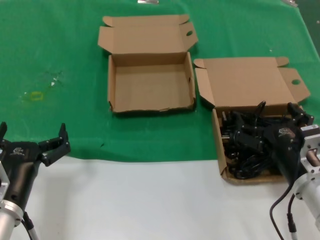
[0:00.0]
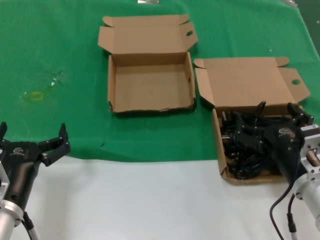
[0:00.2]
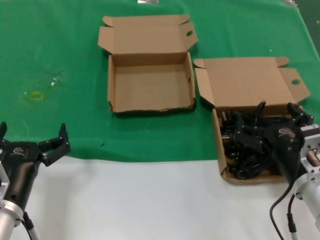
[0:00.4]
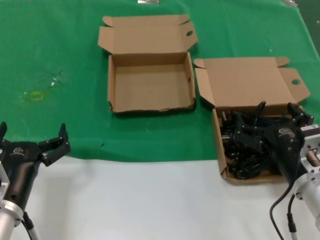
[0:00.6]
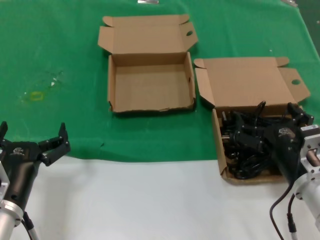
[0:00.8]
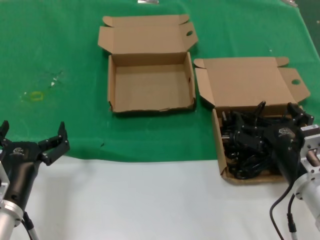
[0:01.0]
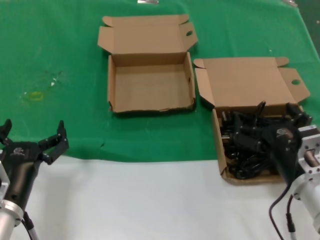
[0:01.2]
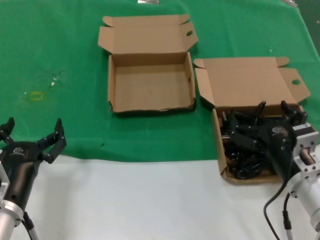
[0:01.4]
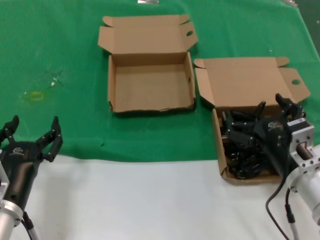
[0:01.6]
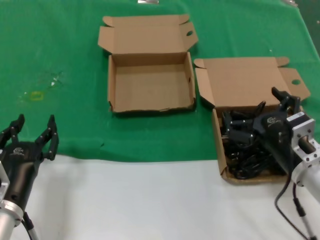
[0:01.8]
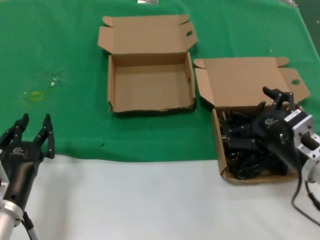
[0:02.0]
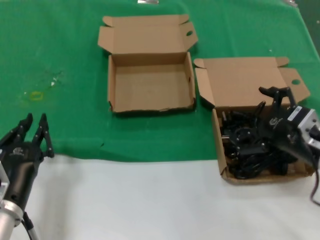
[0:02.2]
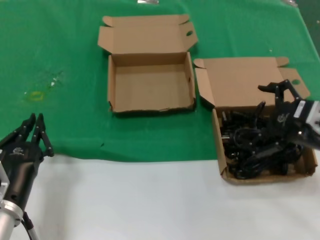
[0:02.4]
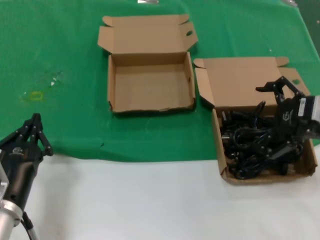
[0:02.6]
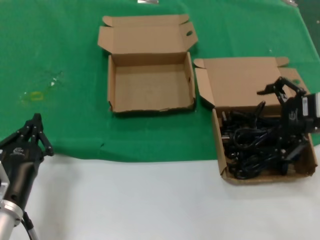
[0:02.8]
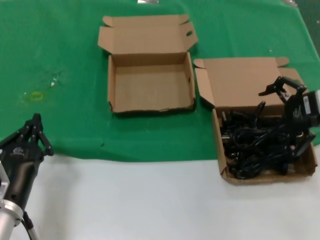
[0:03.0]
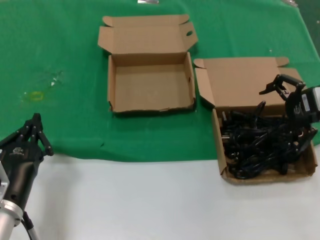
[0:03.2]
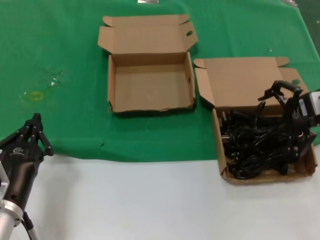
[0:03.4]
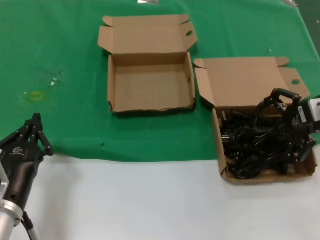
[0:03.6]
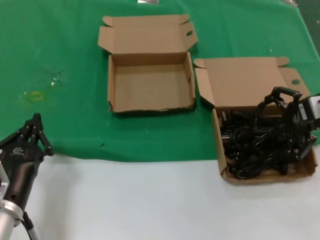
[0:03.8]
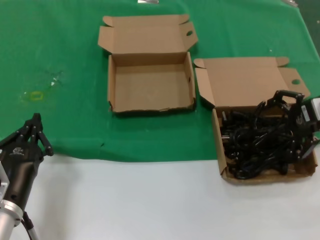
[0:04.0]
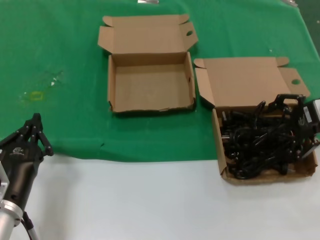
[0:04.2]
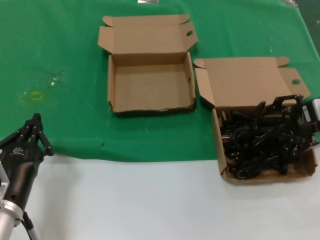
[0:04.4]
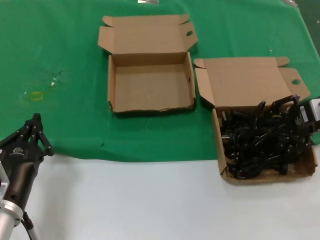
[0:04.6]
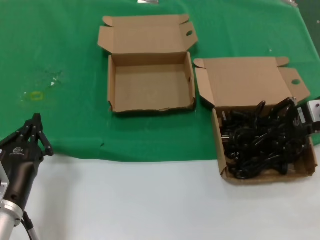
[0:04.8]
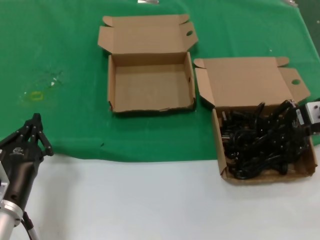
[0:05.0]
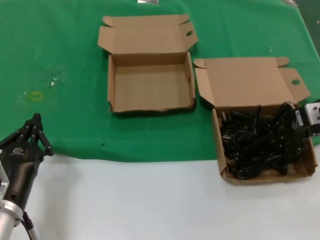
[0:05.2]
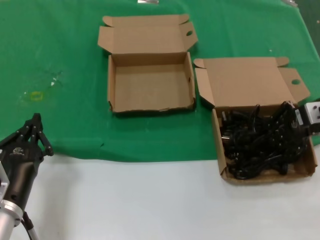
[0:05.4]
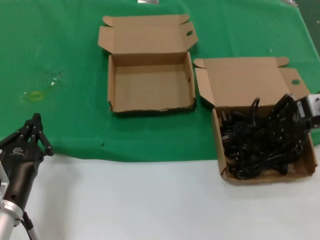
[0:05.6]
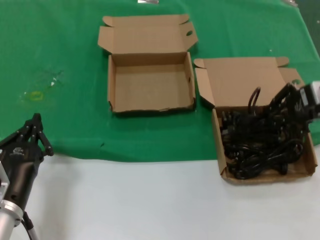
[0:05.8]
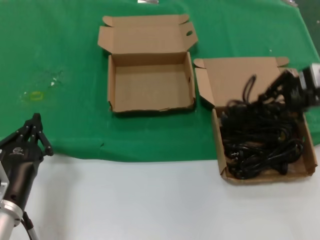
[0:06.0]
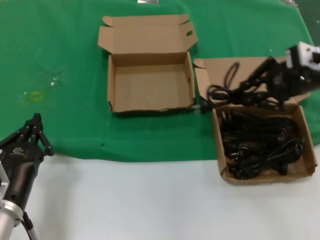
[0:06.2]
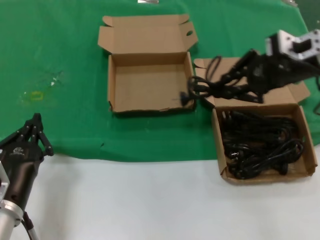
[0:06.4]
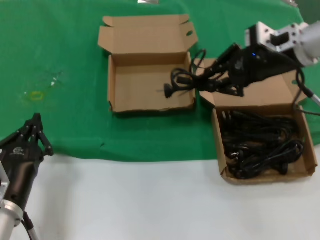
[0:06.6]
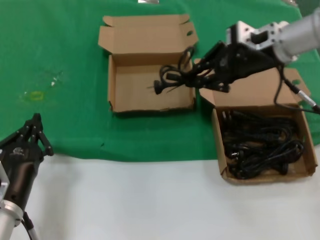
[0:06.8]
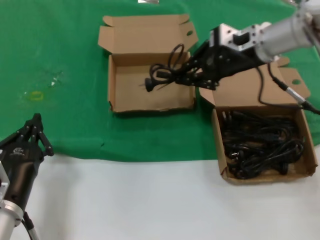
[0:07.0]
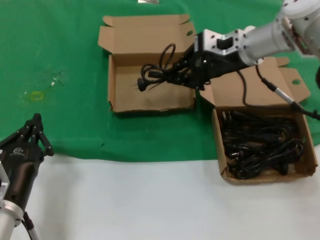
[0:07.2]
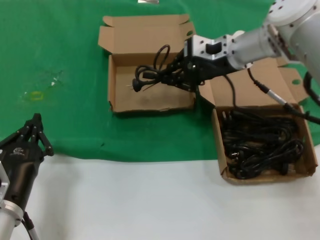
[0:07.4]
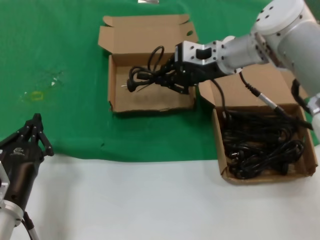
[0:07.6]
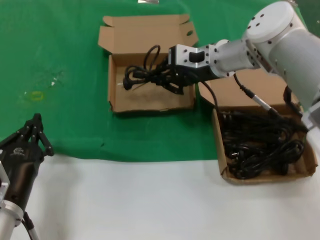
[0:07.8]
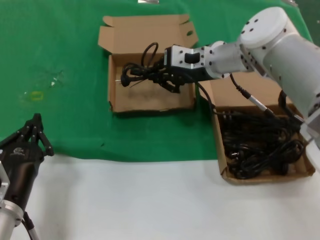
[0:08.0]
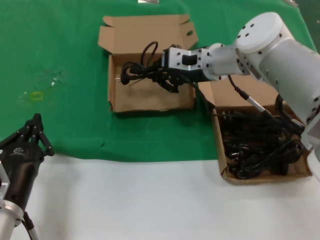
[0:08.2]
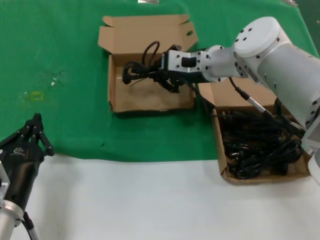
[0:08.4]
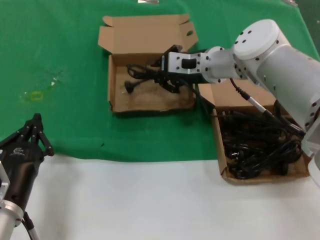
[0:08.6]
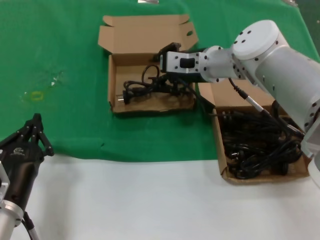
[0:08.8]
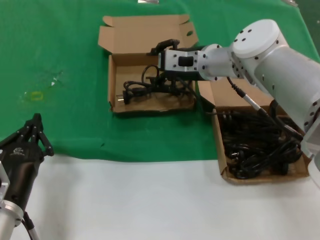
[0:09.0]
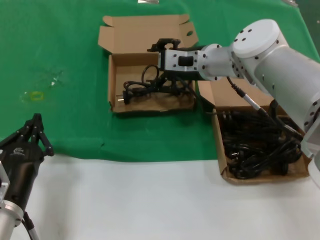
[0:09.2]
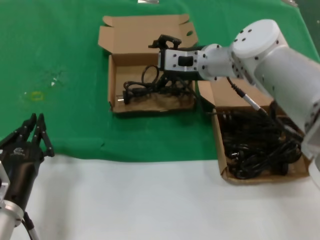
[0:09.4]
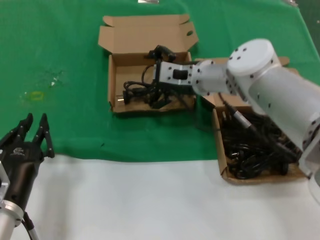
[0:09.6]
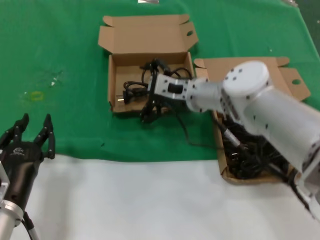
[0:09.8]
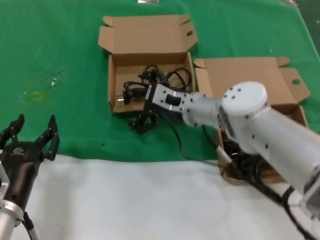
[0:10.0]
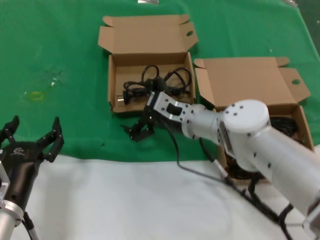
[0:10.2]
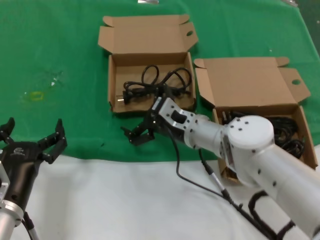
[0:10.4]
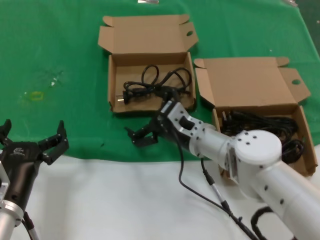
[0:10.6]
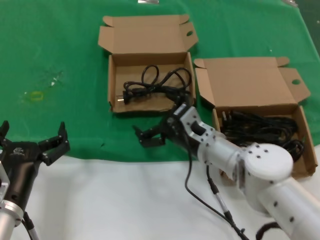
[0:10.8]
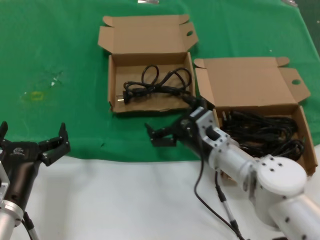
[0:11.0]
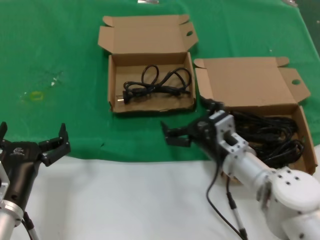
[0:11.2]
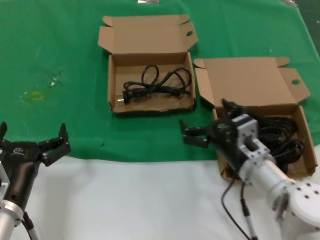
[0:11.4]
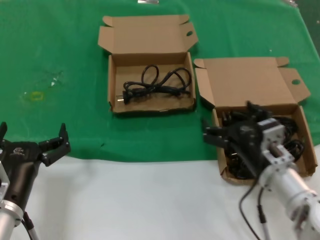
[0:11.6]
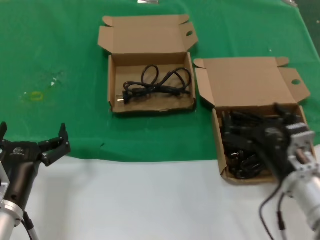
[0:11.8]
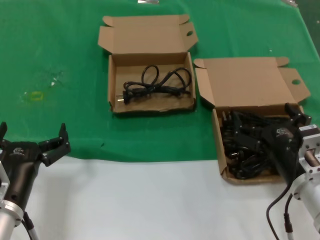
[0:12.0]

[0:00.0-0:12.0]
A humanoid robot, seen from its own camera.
Task of the whole recording: take the parts from the box containing them and put them into an empty box.
Step, 0:00.0 to 0:05.4: Grasp the data cable.
Step, 0:05.6 to 0:08.8: Place the data cable in the another box.
0:00.0 to 0:01.6: The hands move only a little.
0:01.6 to 0:03.0: The right hand goes about 25 cm upward, to the right and forward.
0:03.0 to 0:04.4: The right hand shifts by approximately 5 cm.
0:04.4 to 0:06.0: The right hand goes some 5 cm upward.
0:06.0 to 0:07.6: The right hand shifts approximately 20 cm to the left and forward.
0:07.6 to 0:09.0: The right hand moves approximately 5 cm.
0:09.0 to 0:10.4: The right hand goes roughly 15 cm downward and backward.
0:10.4 to 0:12.0: The right hand travels backward and to the right by about 25 cm.

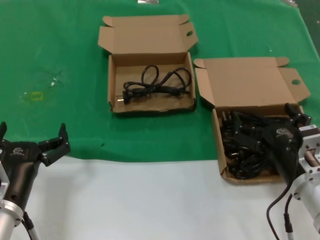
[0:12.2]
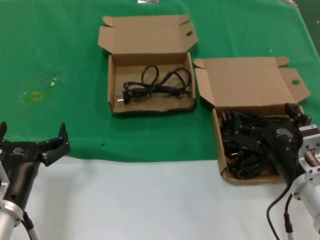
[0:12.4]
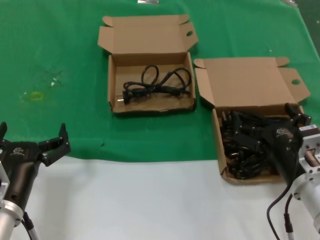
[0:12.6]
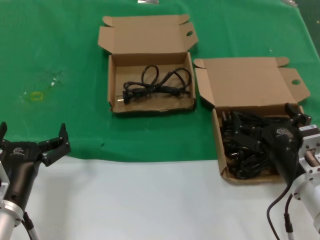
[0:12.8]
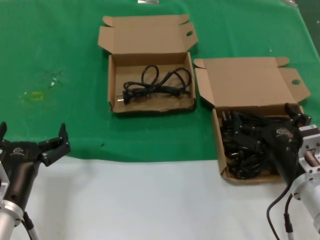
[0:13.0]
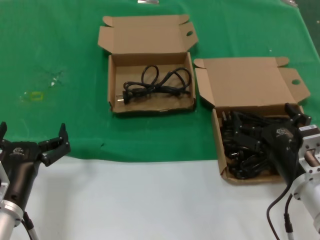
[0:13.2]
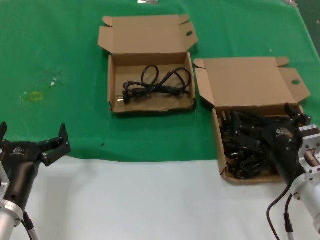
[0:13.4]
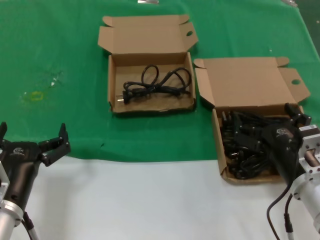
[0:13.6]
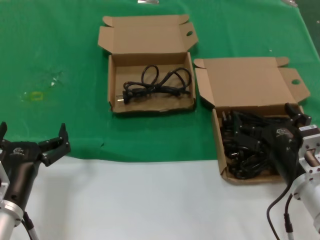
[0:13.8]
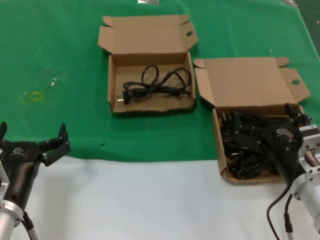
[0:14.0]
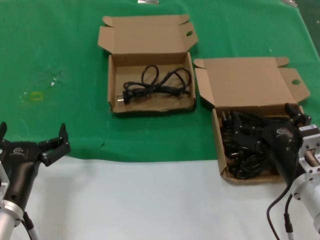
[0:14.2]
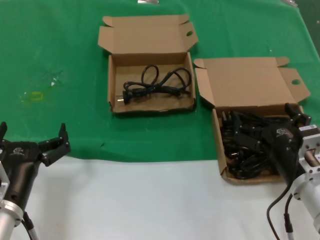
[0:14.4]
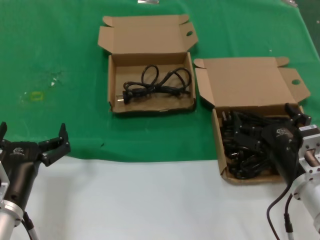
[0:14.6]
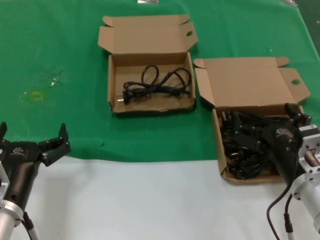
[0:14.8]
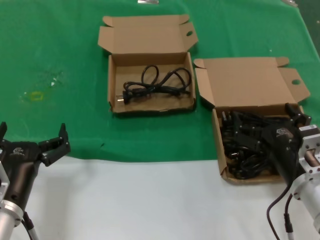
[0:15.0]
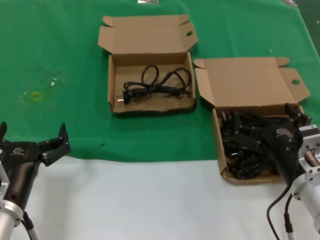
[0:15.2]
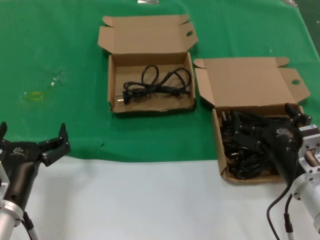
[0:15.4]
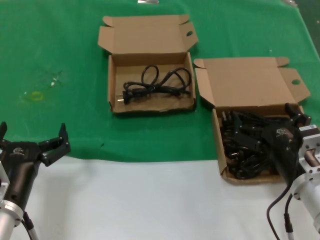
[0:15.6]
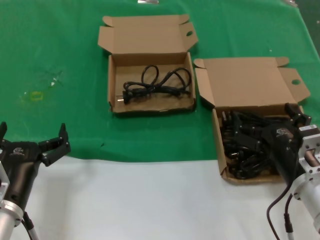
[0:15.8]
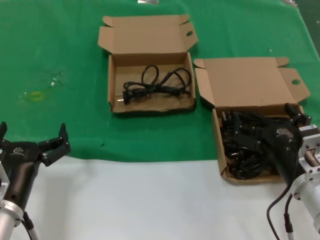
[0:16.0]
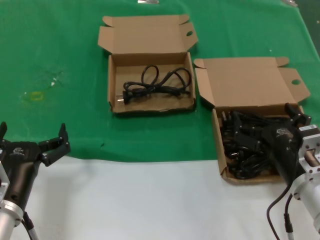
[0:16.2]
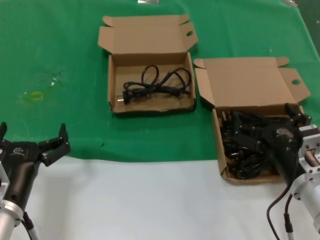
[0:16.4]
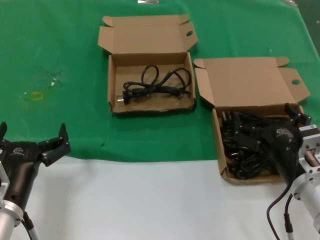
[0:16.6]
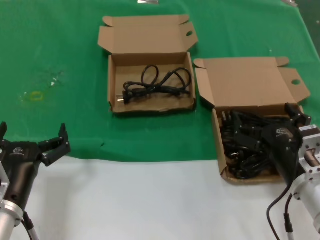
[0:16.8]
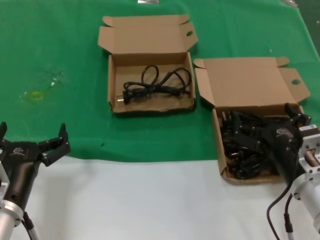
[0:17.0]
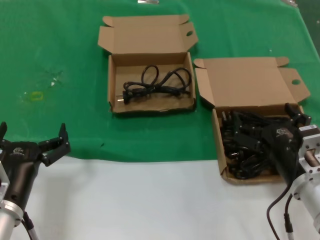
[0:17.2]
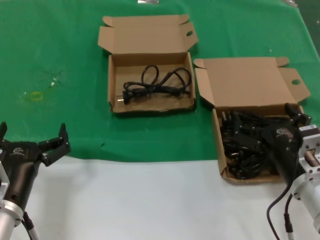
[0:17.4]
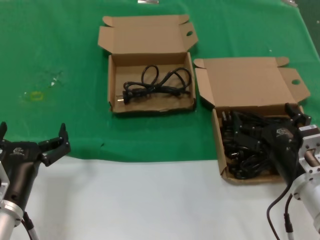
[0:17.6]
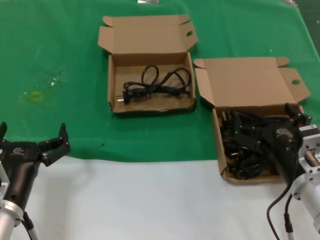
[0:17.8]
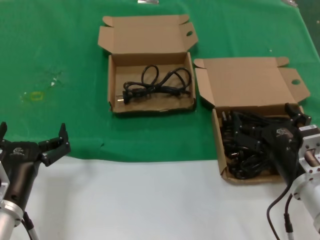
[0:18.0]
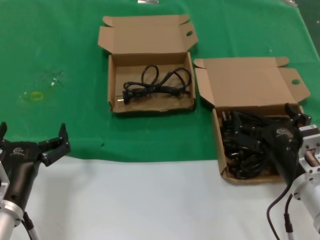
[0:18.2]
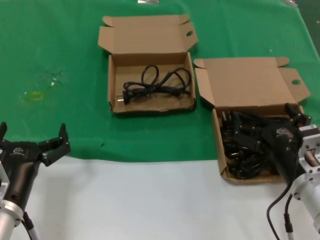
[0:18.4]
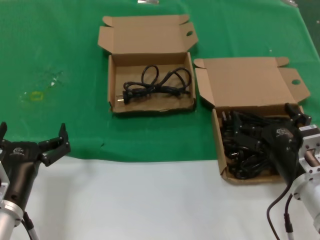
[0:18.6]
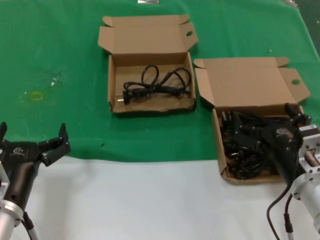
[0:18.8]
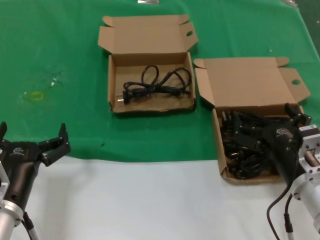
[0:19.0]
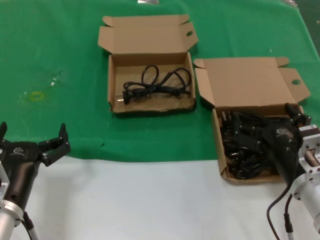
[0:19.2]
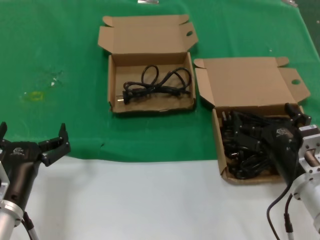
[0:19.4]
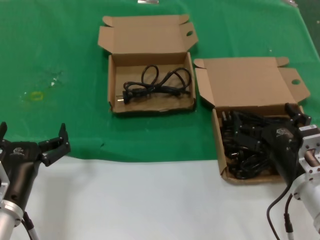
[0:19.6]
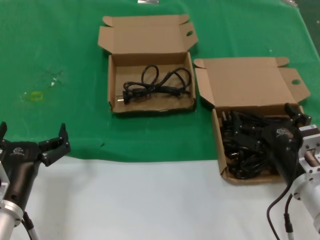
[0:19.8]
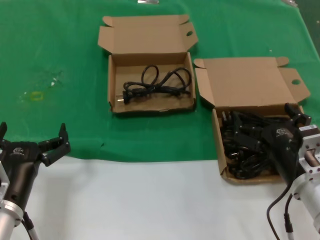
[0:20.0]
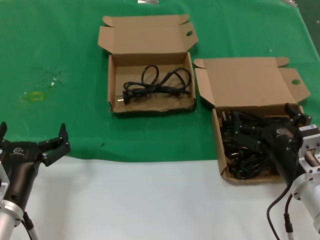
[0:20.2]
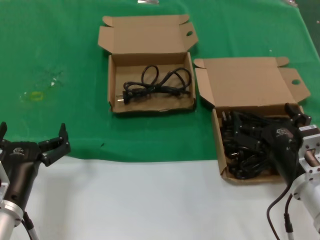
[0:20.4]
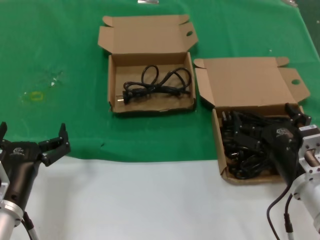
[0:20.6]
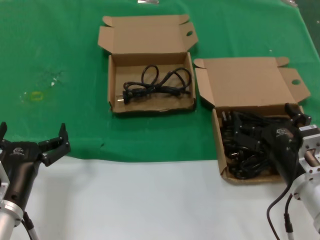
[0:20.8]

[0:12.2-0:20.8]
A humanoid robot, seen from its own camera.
Task of the whole recording: take the parts from the box containing them and put them into an empty box.
0:12.2 to 0:20.8: Neither hand changes place.
